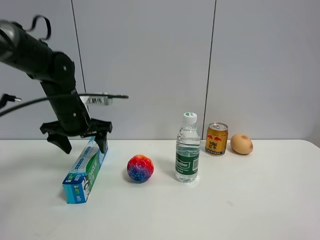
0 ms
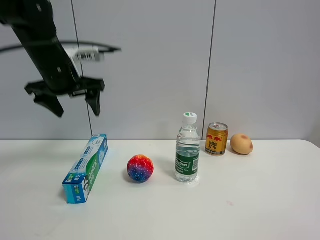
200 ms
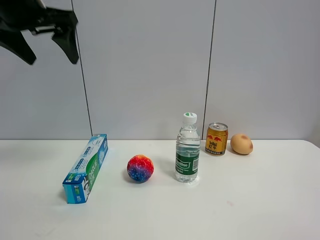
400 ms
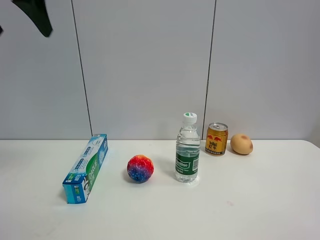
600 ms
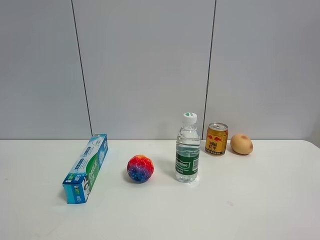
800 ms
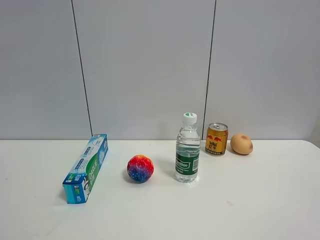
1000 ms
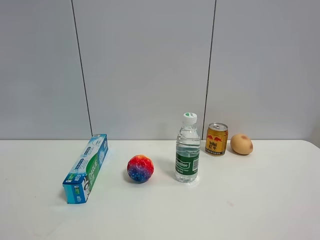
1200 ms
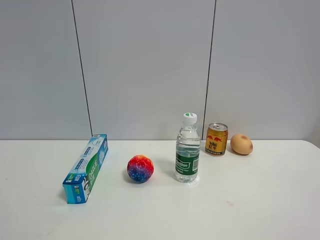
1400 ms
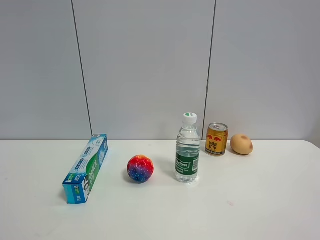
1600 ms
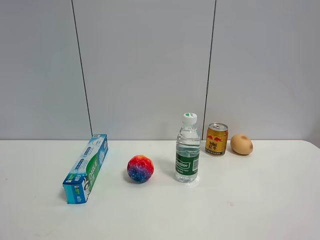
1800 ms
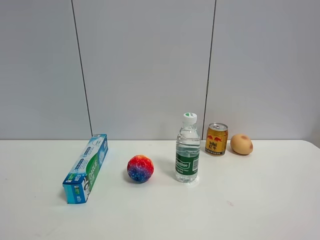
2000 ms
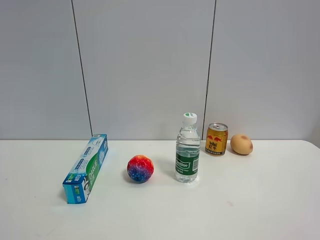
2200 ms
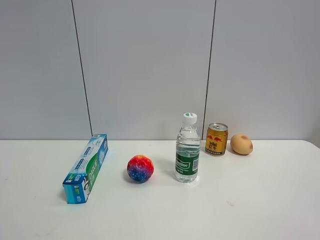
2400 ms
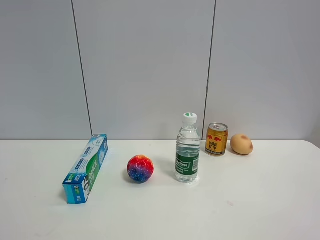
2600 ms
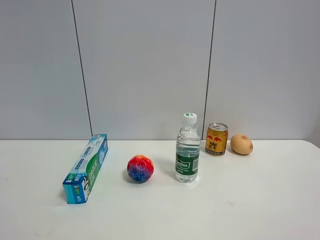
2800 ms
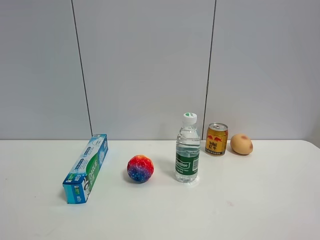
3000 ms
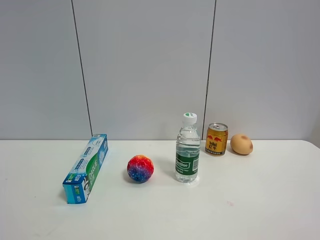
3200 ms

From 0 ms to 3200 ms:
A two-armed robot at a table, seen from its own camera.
Task of the whole recording: the gripper move the object.
From 0 ms to 1600 ms: The left gripper shifts roughly 40 cm backward.

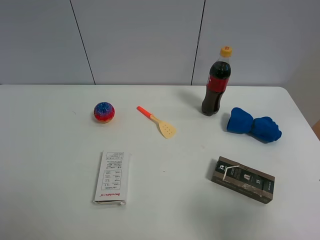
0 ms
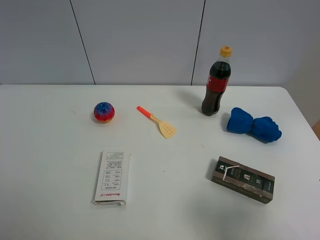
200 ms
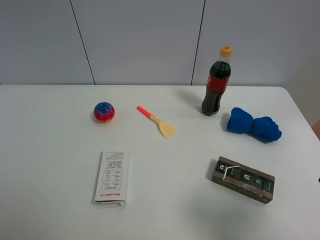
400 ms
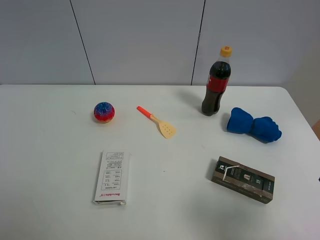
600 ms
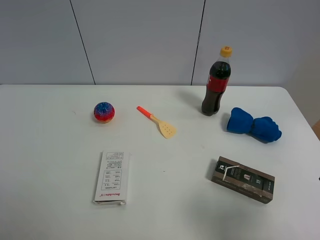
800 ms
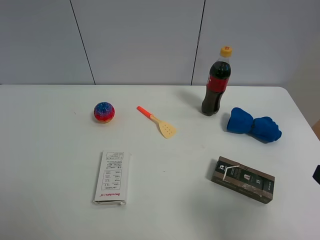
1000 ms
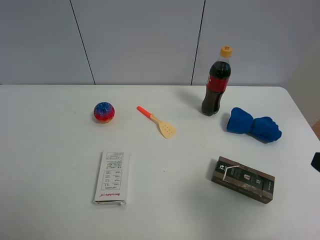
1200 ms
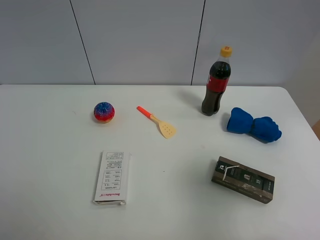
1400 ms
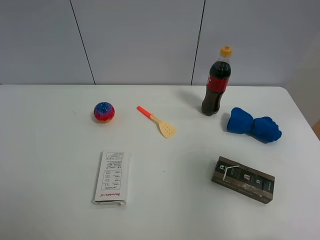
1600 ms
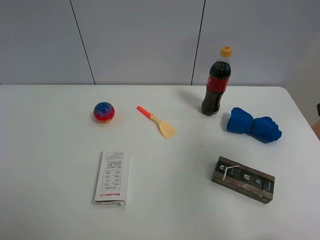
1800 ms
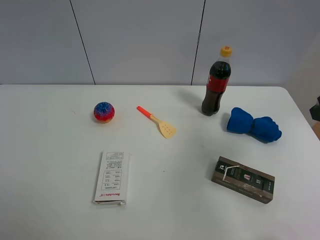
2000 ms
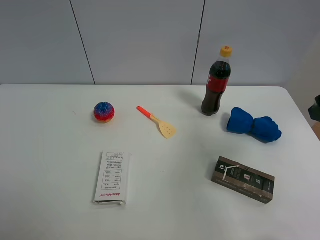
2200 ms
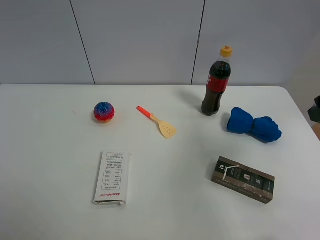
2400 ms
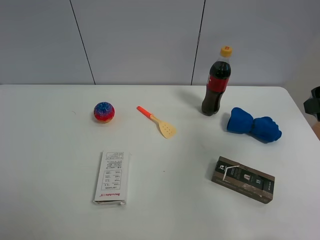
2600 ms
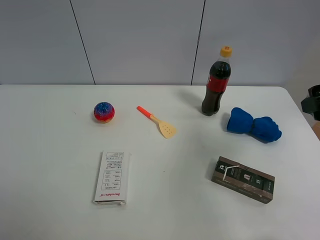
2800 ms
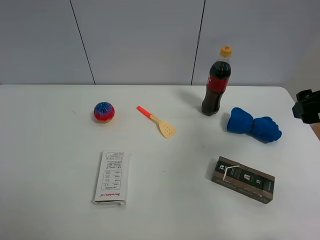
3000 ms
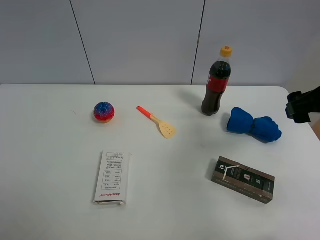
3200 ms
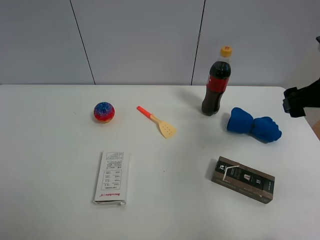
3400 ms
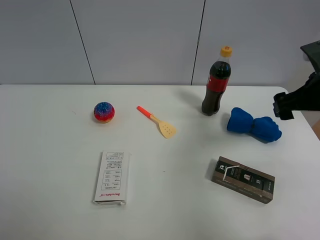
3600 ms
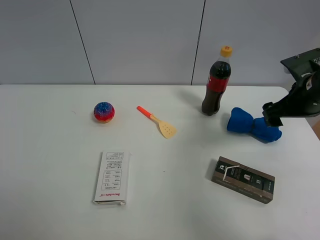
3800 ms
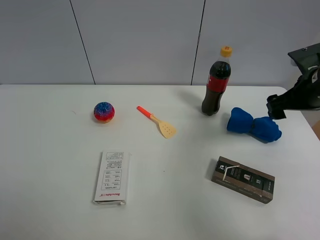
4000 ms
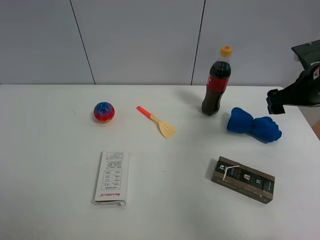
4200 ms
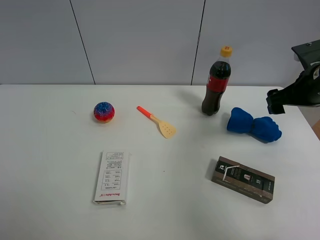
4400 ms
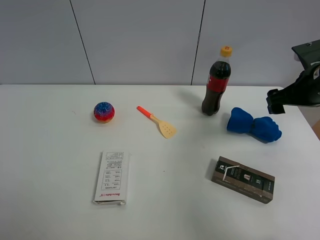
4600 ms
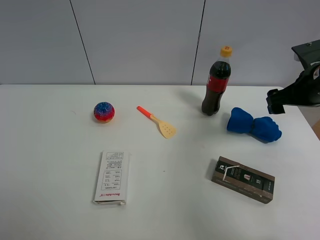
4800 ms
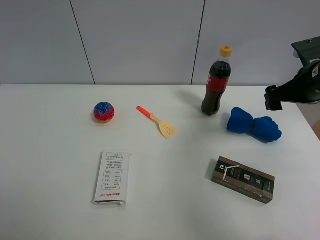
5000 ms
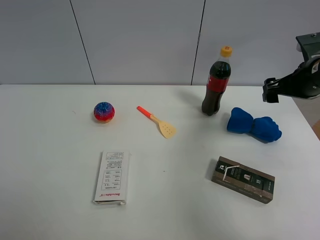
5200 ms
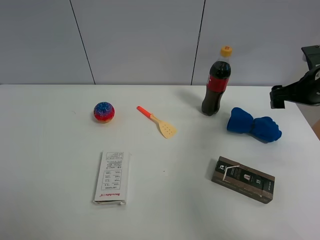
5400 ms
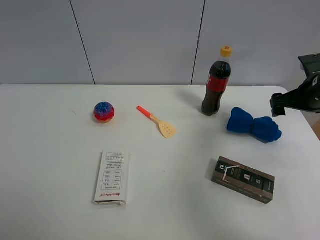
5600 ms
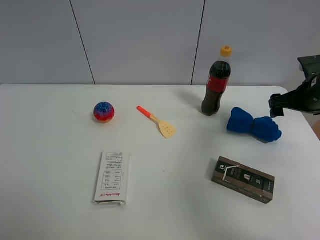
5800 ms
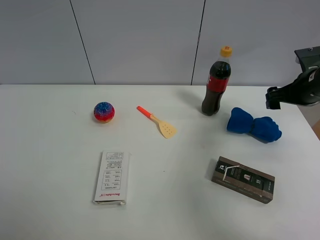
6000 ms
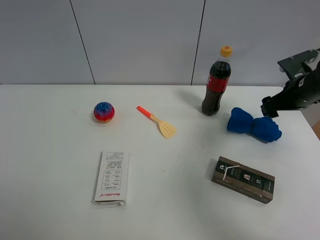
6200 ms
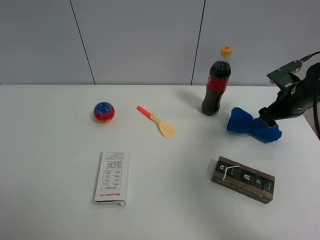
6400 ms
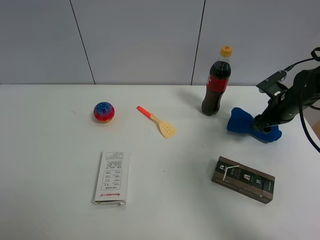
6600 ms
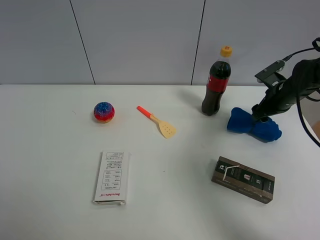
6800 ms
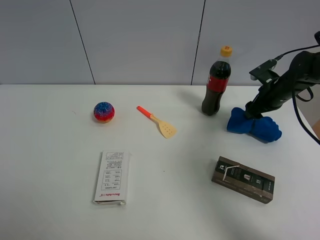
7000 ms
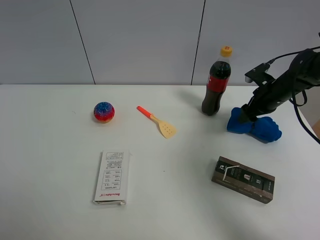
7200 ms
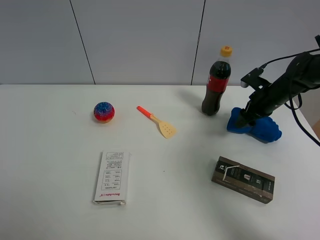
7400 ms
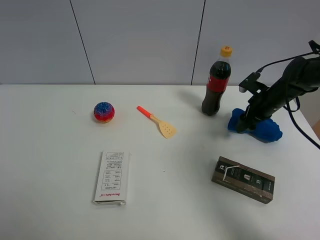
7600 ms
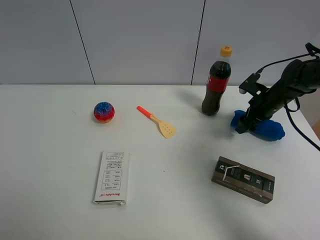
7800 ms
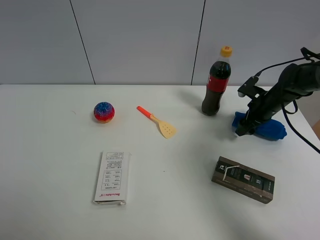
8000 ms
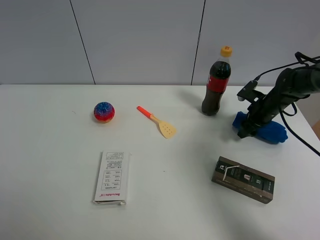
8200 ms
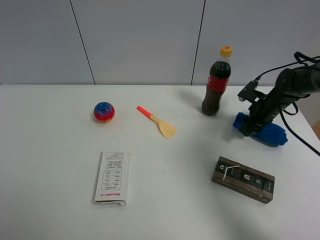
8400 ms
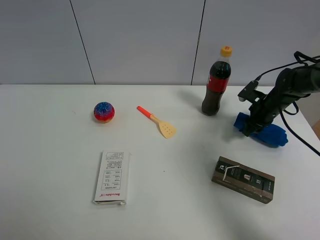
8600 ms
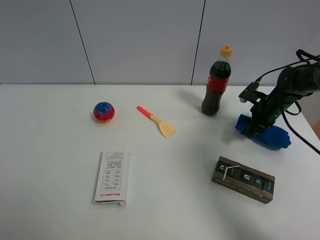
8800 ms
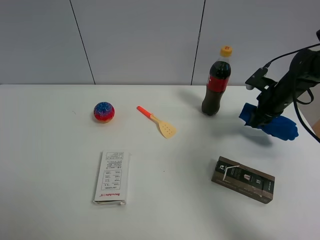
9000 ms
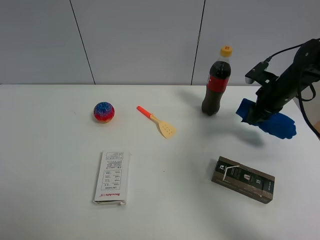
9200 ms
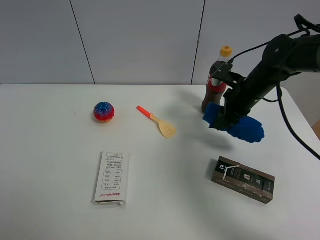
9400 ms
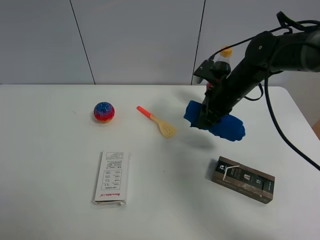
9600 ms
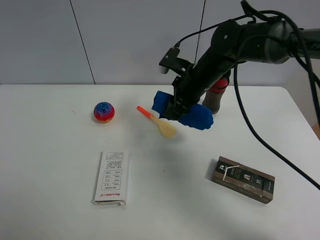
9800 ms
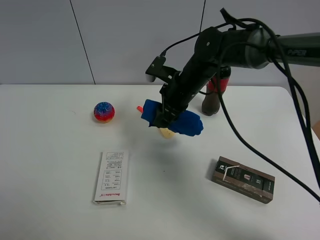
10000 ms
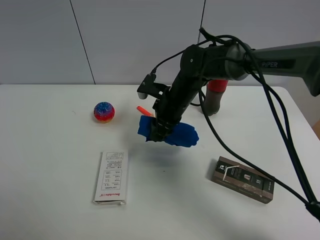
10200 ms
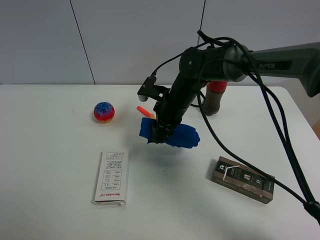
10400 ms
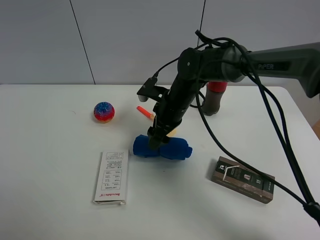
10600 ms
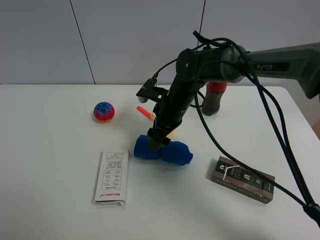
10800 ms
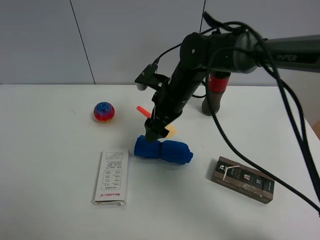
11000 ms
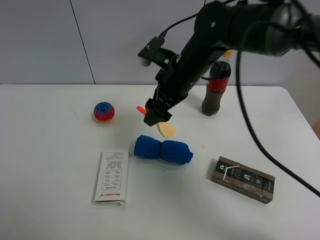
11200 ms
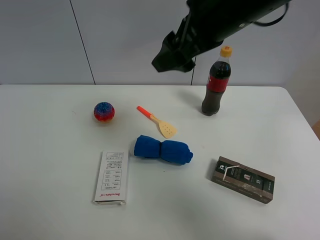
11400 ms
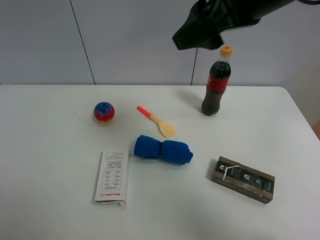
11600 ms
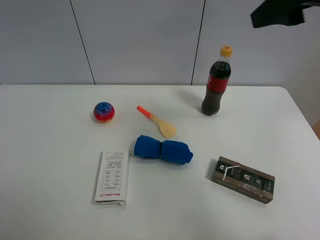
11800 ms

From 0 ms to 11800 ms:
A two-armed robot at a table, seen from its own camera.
Task of the whole recording: the gripper move the object.
Step, from 0 ms to 8400 ms: Grasp the blue towel with the right gripper.
Step, from 8600 ms to 10800 ms: Place the blue towel on the table with the right gripper.
From 0 ms to 1400 ms: The right gripper moves forward and upward, approximately 10 cm.
From 1400 ms to 3000 ms: The right gripper shifts about 10 cm forward.
From 3000 ms to 4400 ms: The right gripper is displaced forward and downward by approximately 10 cm.
From 4400 ms to 6000 ms: The right gripper moves approximately 5 cm.
From 6000 ms to 7400 ms: The right gripper travels downward and forward by about 10 cm, and closes its fingers.
From 7400 ms to 8800 ms: The right gripper closes up.
From 8800 ms to 10400 ms: The right gripper heads to the left, covering about 25 cm.
From 10400 ms to 11800 ms: The right gripper moves upward, to the right and backward, roughly 35 cm, and opens.

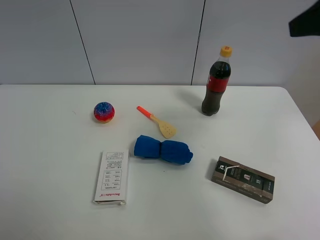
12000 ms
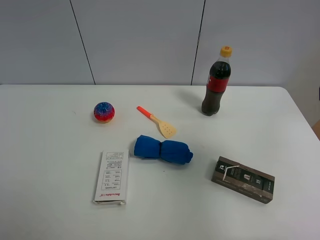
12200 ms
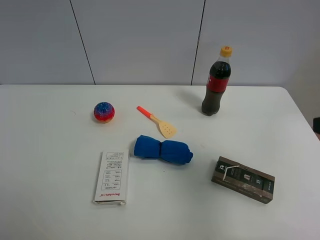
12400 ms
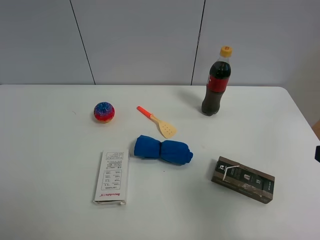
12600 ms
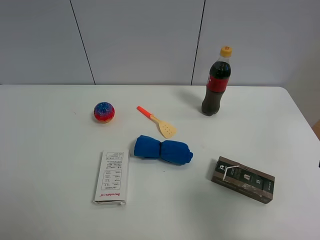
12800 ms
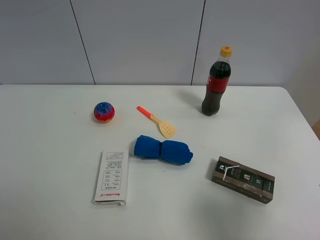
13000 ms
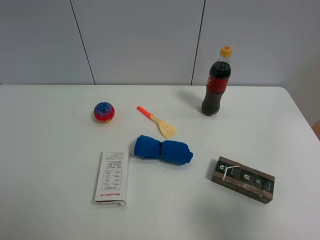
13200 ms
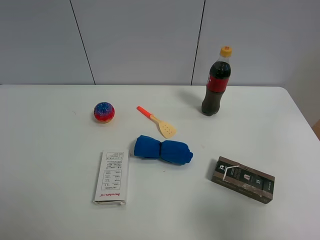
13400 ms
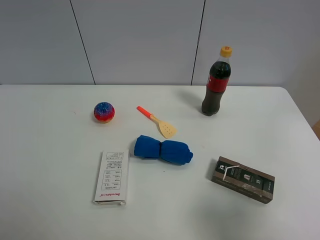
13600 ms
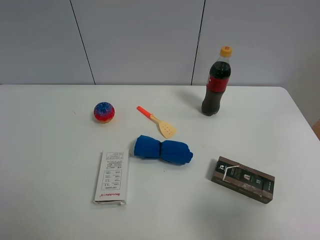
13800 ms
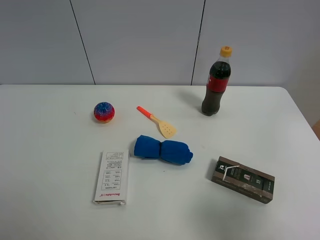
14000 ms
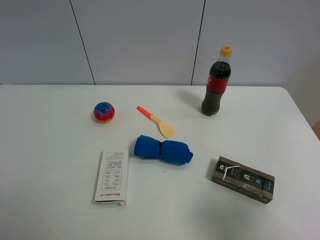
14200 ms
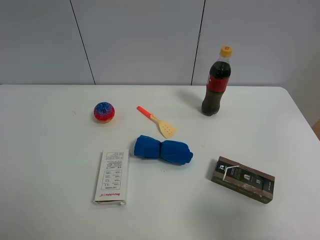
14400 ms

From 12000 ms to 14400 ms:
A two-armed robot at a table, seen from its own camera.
Task of the whole recording: the gripper move the object.
From 12000 ms to 13200 ms: The right gripper travels backward and downward by about 25 cm.
From 13200 ms to 14400 ms: Both grippers stay about where they are.

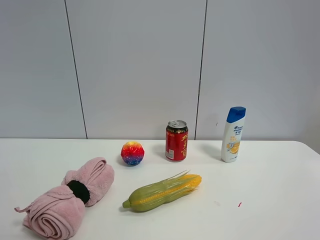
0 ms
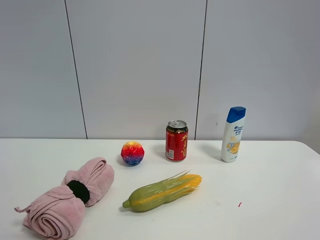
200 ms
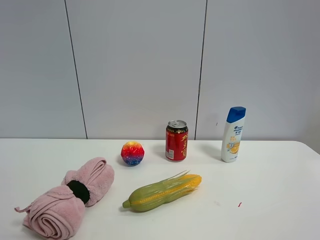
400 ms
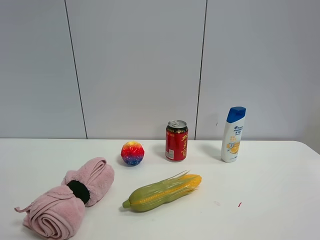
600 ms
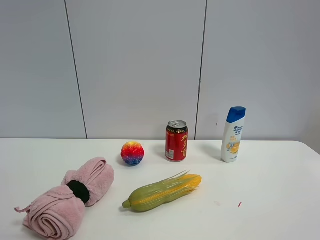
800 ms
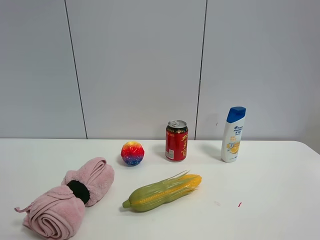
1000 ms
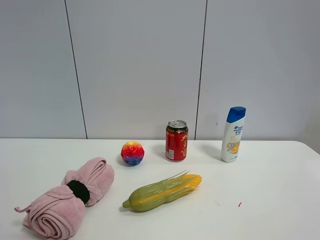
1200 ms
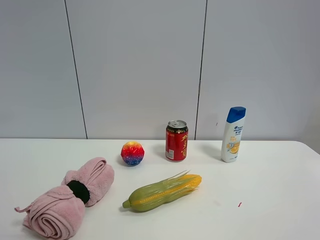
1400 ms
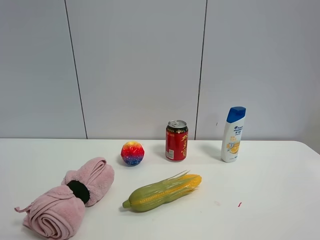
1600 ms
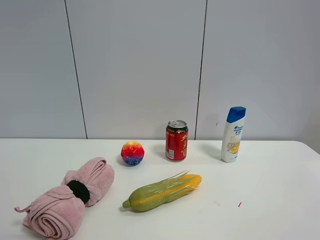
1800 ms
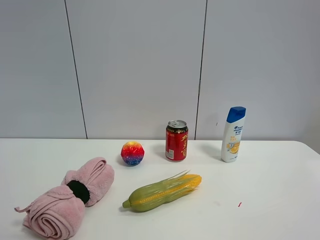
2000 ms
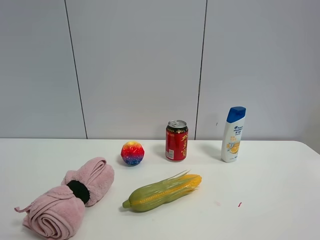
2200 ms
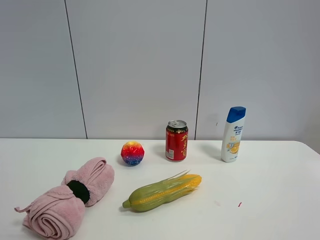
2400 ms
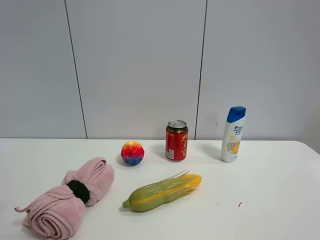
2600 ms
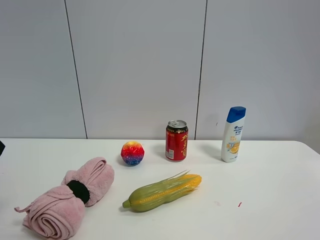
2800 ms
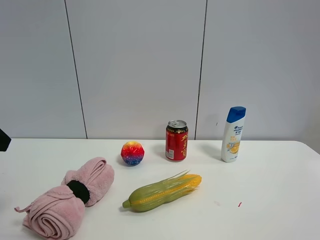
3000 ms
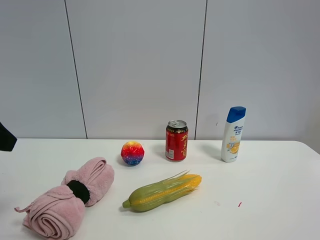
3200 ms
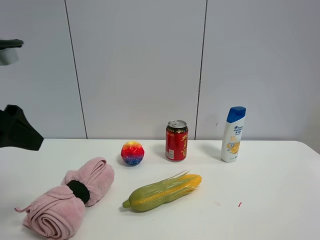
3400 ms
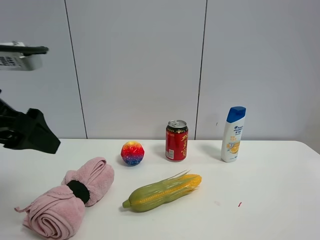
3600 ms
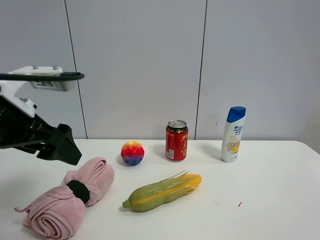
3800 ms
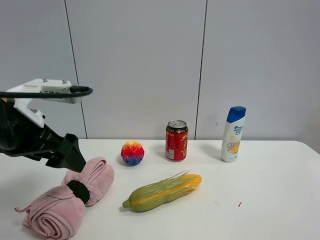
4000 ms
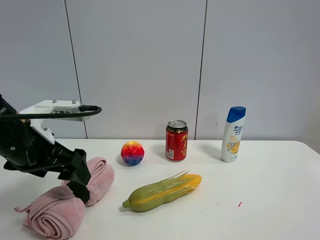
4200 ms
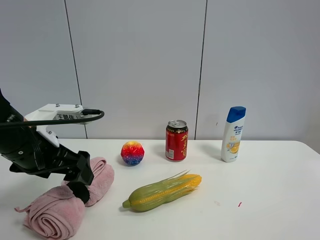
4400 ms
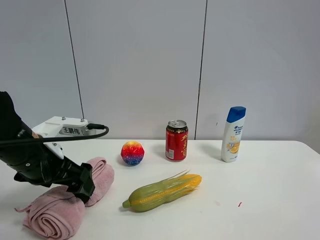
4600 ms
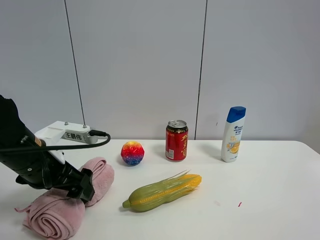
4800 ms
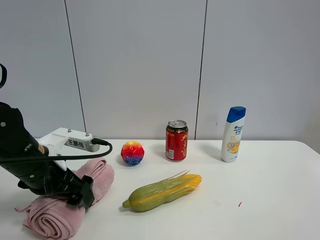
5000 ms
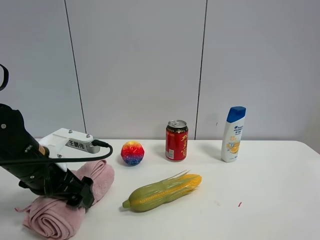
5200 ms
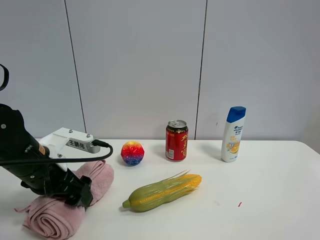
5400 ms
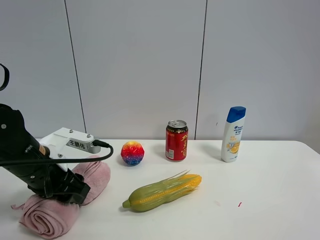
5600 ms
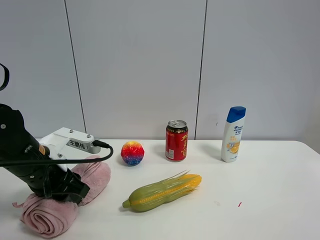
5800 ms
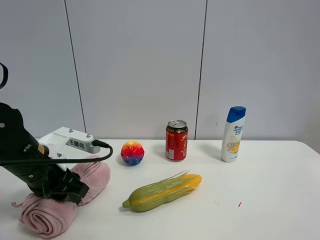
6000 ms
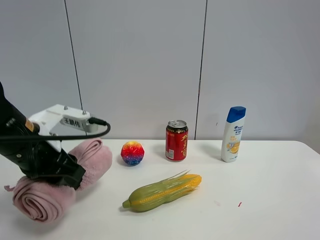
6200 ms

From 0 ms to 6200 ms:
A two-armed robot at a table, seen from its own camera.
Task of the whole recording: the gripper move the object.
Step, from 0 ms to 5800 ms: Grasp the pink towel with the left gripper.
From 3200 ms to 4600 ms: The left gripper is displaced downward, forward and to the right by some 15 cm.
From 4600 ms to 6200 ms: The left gripper closes.
